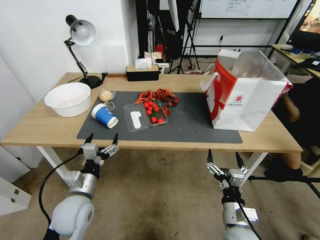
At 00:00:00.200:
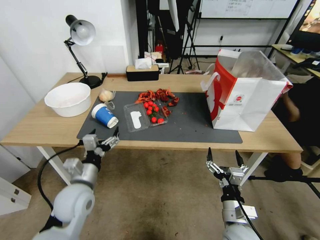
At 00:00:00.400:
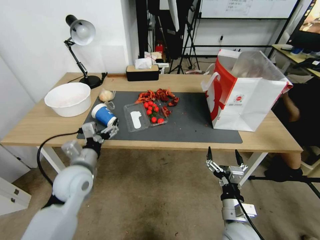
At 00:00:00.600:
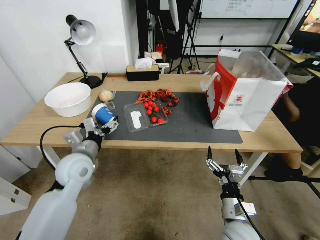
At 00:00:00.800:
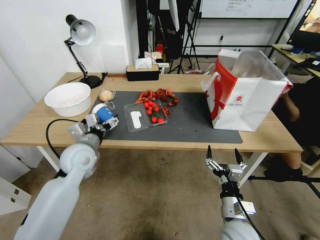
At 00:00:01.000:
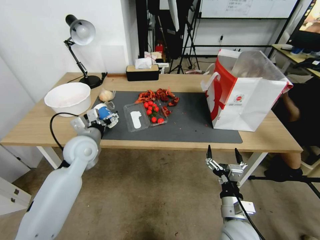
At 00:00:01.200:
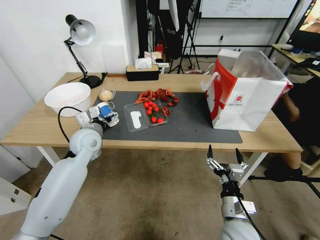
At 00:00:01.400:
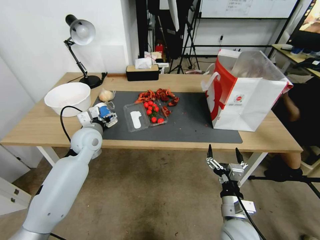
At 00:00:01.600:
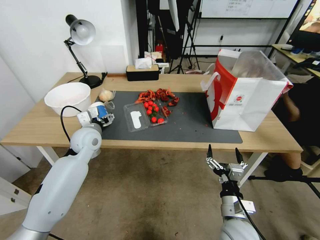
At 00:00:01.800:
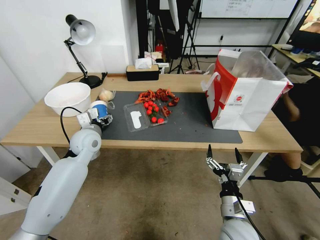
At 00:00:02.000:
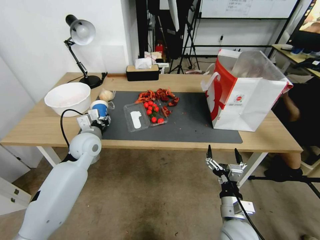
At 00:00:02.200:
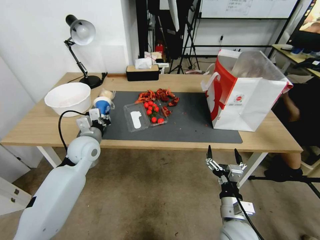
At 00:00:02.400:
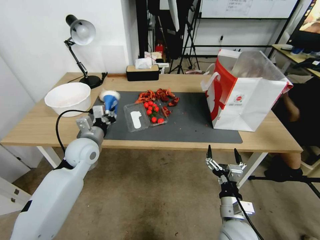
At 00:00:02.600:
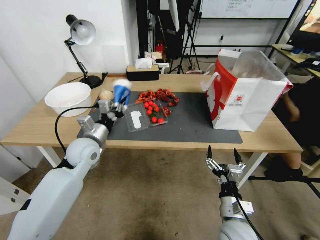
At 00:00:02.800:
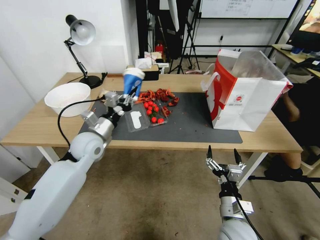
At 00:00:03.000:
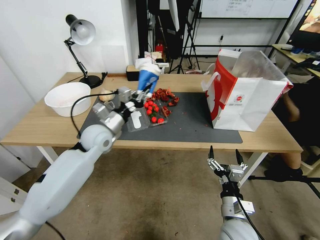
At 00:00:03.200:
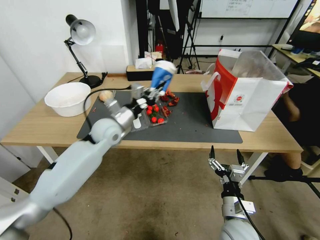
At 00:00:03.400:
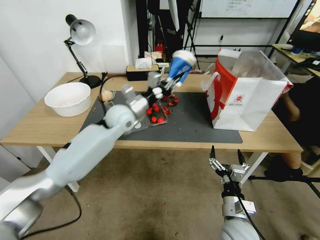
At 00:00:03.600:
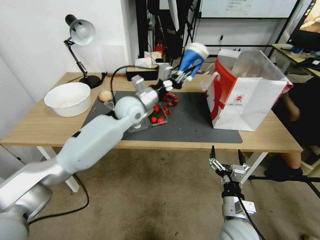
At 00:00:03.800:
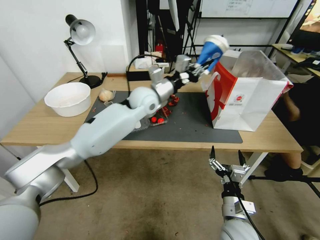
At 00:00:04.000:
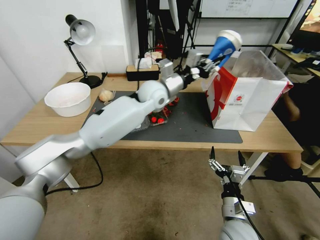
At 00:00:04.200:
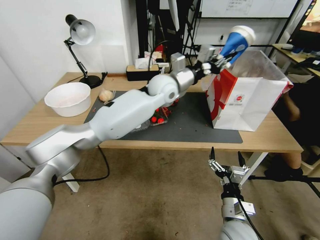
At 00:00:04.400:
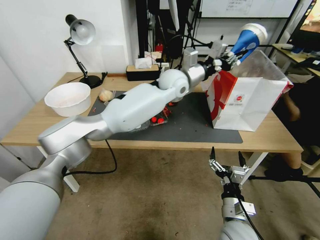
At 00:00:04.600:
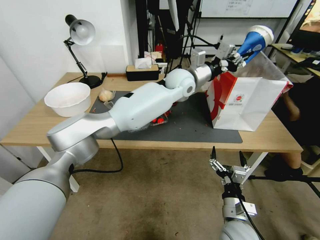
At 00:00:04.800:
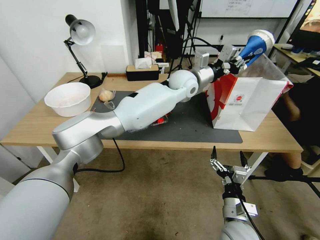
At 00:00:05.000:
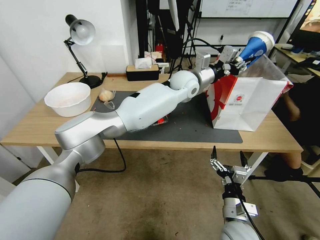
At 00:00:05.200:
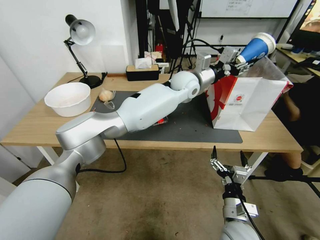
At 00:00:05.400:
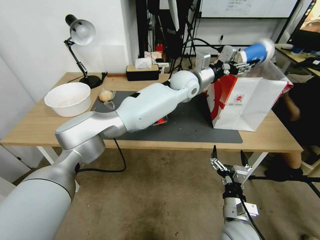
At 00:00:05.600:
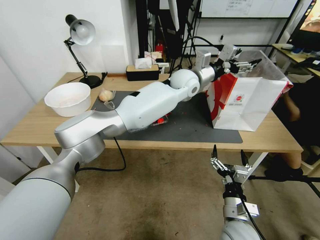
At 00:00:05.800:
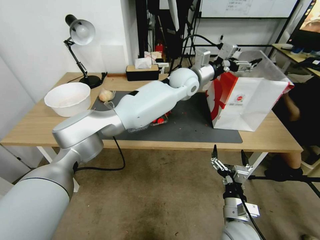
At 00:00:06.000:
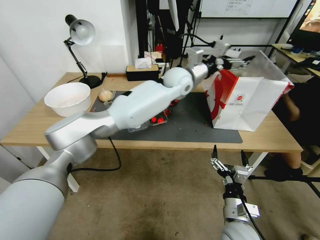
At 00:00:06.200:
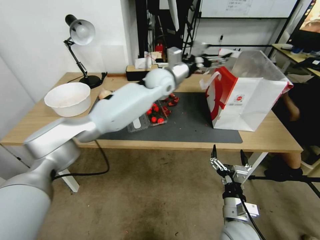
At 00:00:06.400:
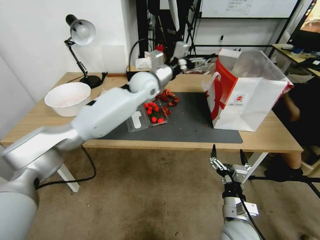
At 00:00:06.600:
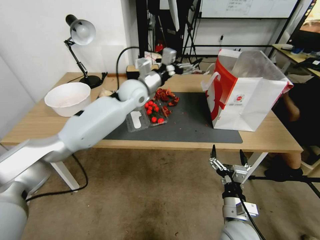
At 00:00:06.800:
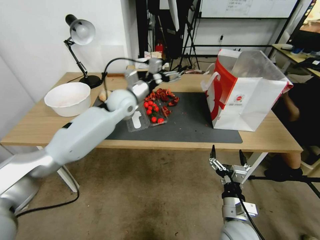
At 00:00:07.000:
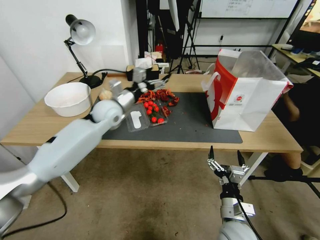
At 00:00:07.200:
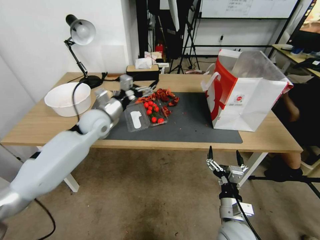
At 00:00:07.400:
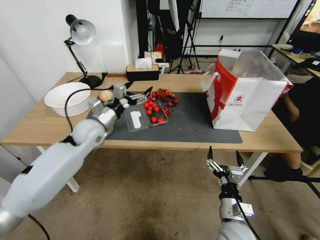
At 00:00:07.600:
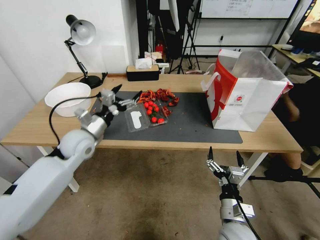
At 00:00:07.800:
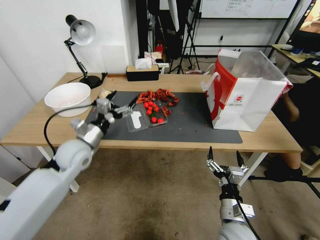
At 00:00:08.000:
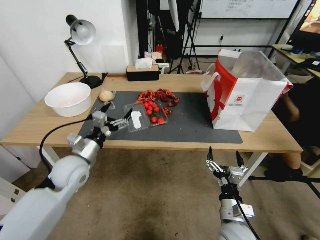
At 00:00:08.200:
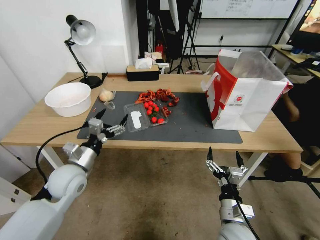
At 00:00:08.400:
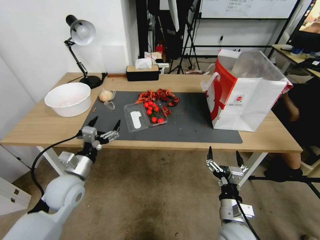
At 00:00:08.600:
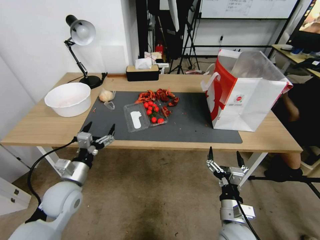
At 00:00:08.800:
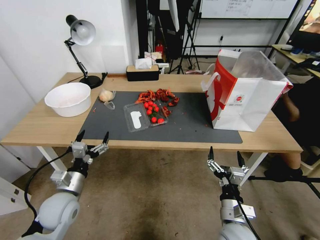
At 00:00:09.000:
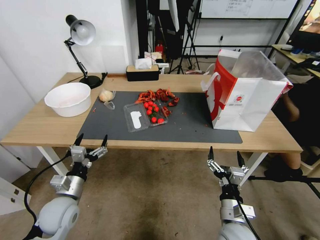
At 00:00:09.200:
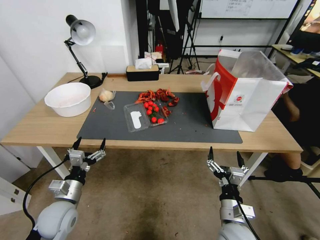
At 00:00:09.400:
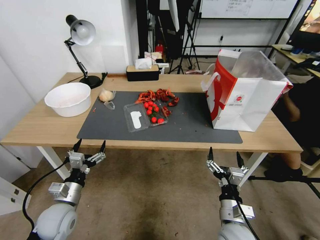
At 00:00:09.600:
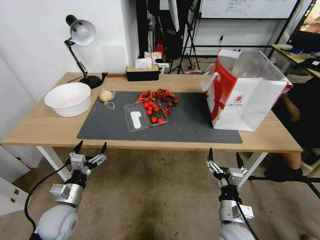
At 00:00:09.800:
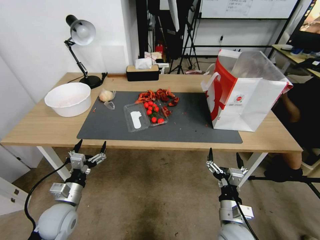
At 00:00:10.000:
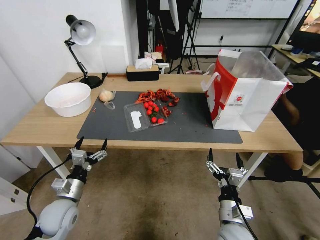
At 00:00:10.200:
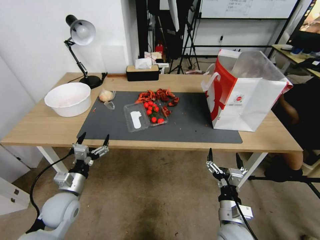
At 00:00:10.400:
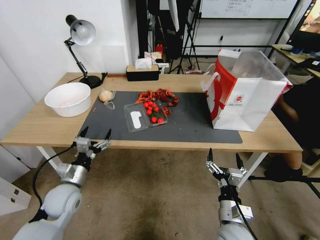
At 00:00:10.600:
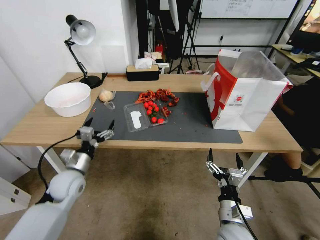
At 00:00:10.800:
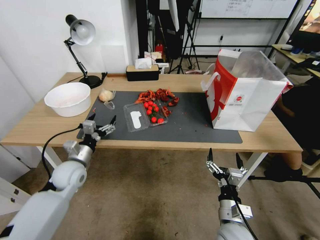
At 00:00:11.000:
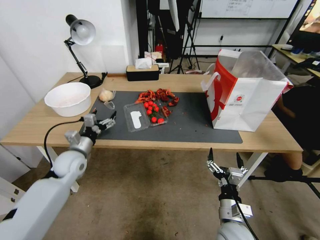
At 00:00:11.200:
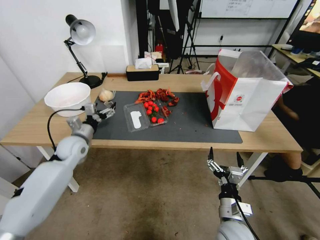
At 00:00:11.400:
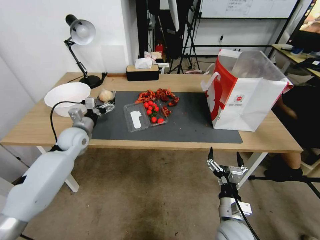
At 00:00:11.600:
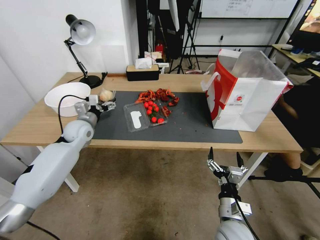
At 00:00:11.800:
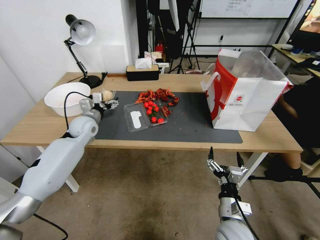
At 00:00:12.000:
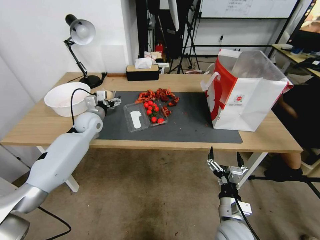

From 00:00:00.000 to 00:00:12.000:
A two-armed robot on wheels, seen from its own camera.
From 00:00:00.000 to 00:00:01.600: The left gripper moves forward, roughly 20 cm.
From 00:00:01.600 to 00:00:03.000: The left gripper closes.
From 00:00:03.000 to 00:00:04.400: The left gripper heads to the right, upward and forward, covering approximately 30 cm.
From 00:00:04.400 to 00:00:06.000: The left gripper opens.
From 00:00:06.000 to 00:00:07.600: The left gripper goes approximately 40 cm to the left, backward and downward.
From 00:00:07.600 to 00:00:09.000: The left gripper heads backward and downward, covering some 20 cm.
From 00:00:09.000 to 00:00:10.400: The grippers make only small movements.
From 00:00:10.400 to 00:00:12.000: The left gripper heads forward, covering approximately 30 cm.

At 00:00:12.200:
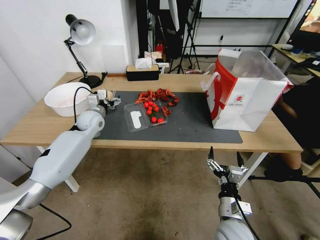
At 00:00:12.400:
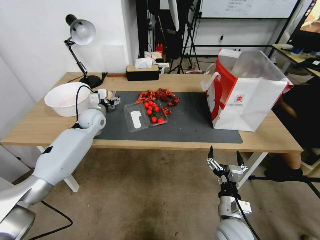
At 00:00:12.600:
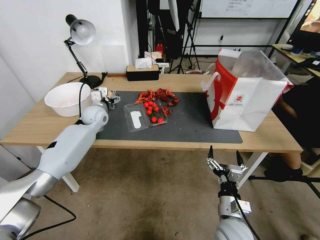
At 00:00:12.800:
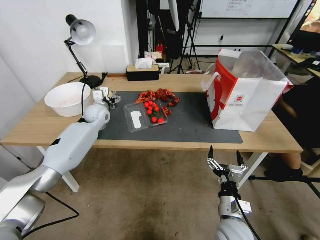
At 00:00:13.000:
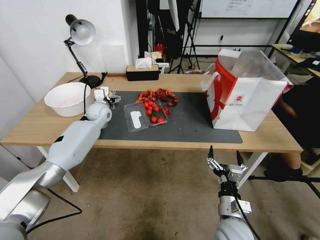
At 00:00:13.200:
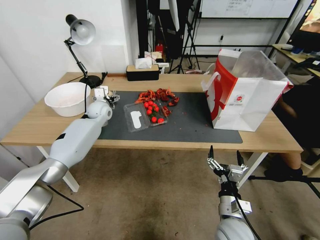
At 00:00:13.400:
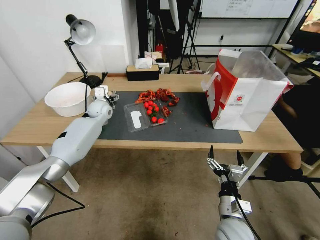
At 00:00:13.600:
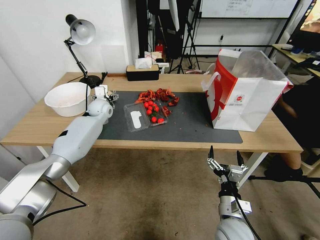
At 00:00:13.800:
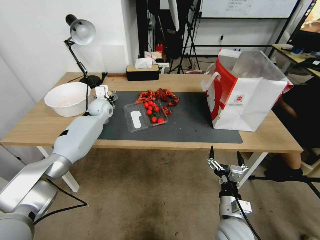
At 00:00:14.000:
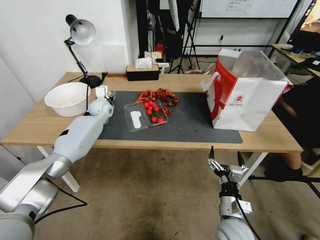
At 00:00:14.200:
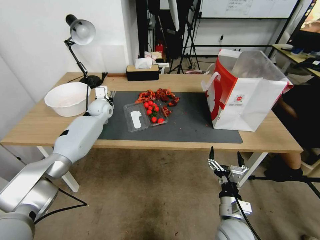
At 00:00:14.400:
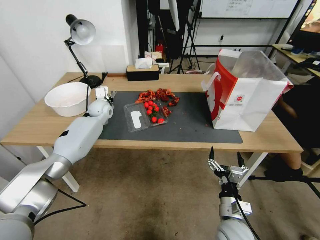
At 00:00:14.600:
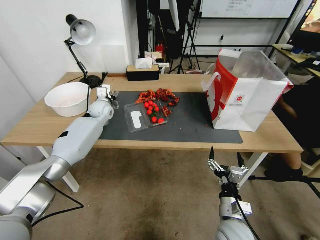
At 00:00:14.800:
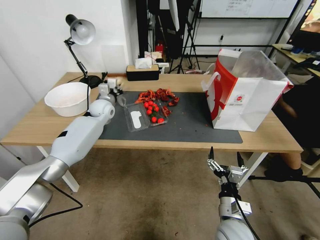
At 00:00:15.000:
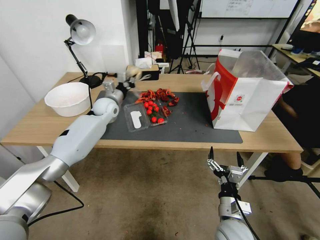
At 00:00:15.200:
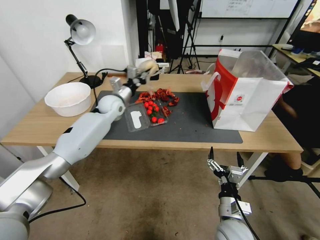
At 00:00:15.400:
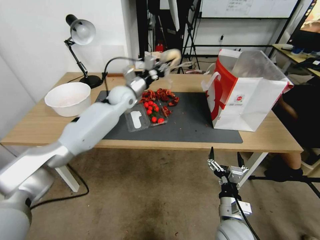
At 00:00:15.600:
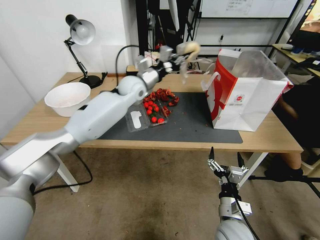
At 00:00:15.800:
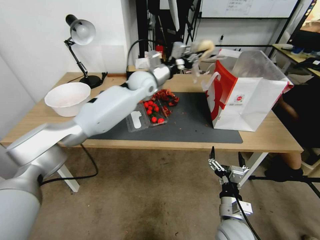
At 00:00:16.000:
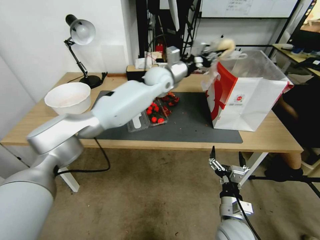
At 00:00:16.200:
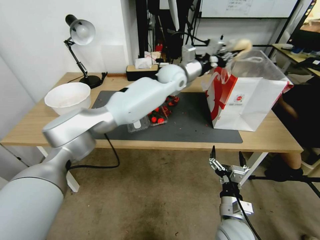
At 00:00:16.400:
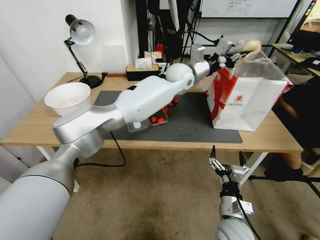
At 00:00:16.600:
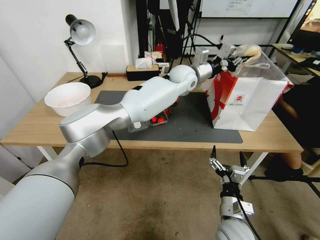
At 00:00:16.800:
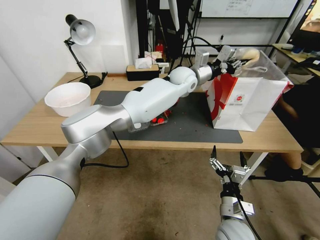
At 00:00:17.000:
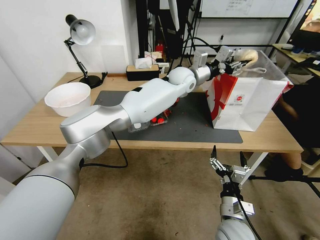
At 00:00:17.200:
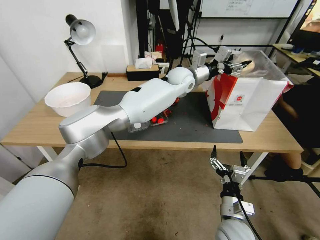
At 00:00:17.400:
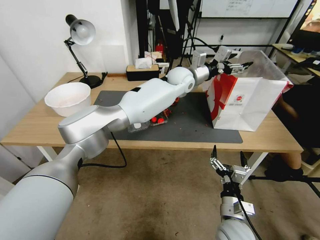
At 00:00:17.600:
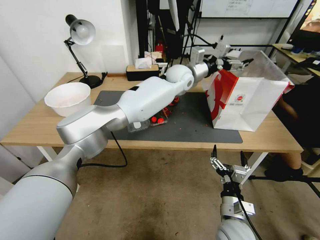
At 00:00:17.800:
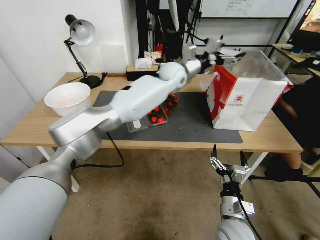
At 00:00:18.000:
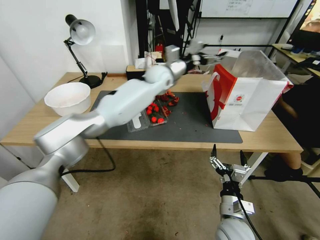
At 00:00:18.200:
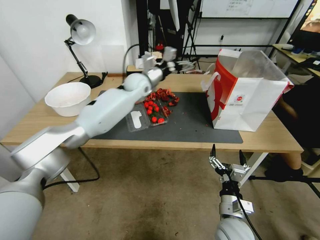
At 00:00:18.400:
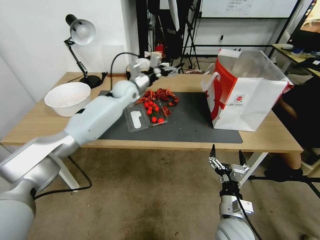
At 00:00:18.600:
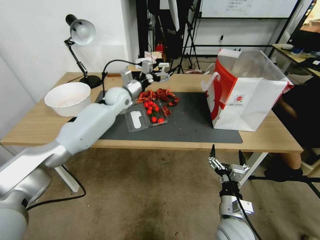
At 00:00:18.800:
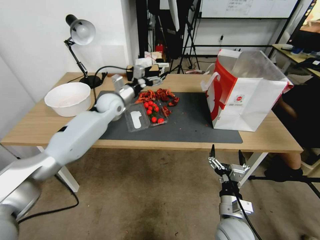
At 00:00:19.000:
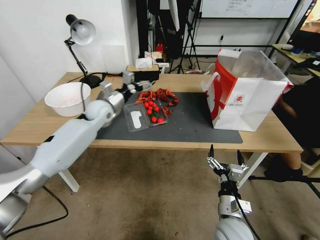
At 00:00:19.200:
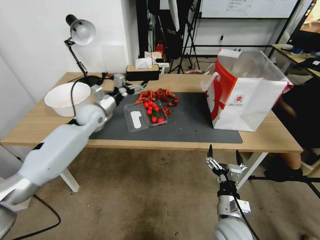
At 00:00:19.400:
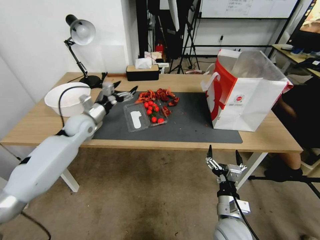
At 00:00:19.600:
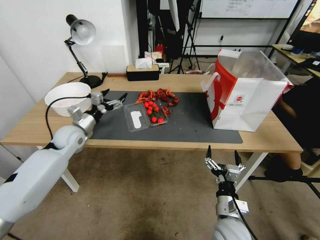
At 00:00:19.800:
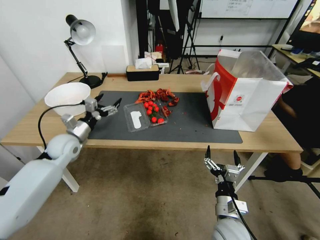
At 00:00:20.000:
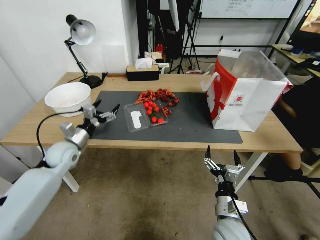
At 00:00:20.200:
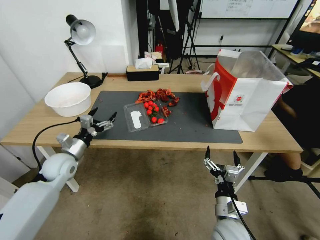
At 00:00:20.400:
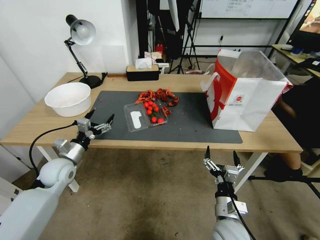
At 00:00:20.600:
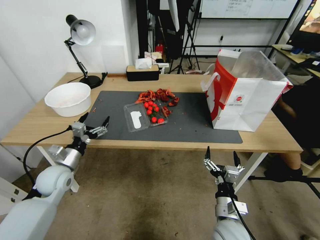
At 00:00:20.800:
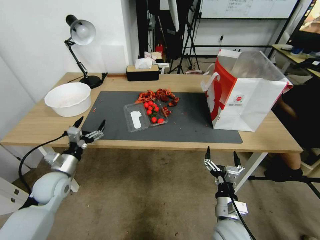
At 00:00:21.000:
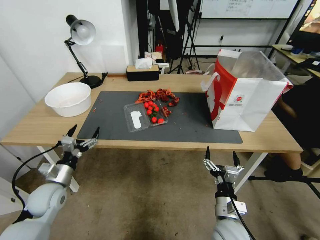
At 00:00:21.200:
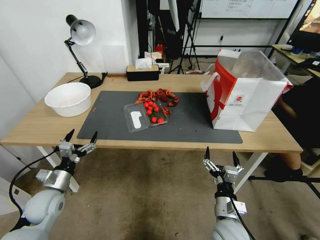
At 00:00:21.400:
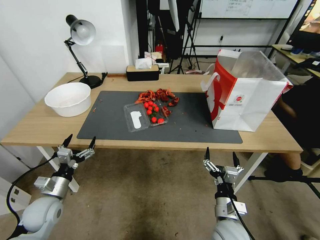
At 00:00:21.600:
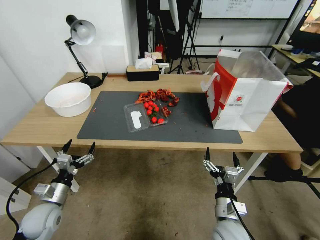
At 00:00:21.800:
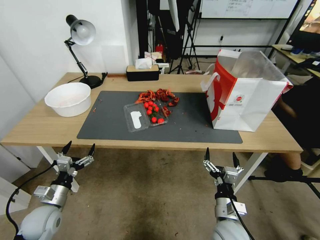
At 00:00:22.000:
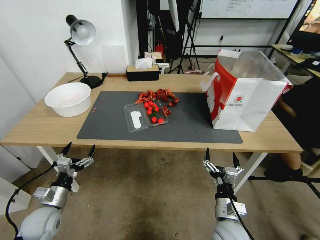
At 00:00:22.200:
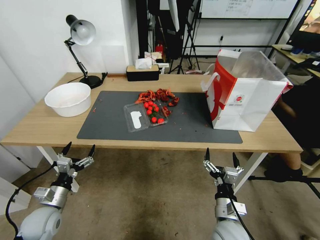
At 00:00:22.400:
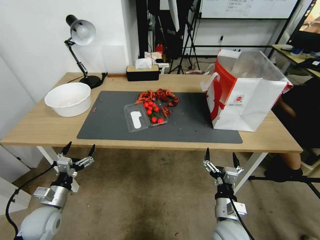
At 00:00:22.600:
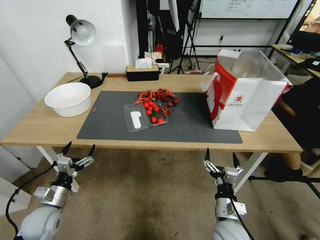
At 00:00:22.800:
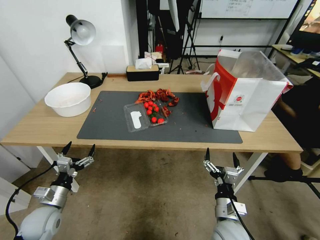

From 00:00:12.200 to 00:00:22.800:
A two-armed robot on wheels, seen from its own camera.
From 00:00:12.200 to 00:00:13.800: The left gripper goes about 10 cm forward.
From 00:00:13.800 to 00:00:15.200: The left gripper shifts approximately 5 cm to the right, and closes up.
From 00:00:15.200 to 00:00:16.800: The left gripper shifts about 30 cm to the right.
From 00:00:16.800 to 00:00:18.200: The left gripper shifts roughly 15 cm to the left, and opens up.
From 00:00:18.200 to 00:00:19.800: The left gripper travels to the left, backward and downward by approximately 35 cm.
From 00:00:19.800 to 00:00:21.200: The left gripper goes approximately 20 cm backward and downward.
From 00:00:21.200 to 00:00:22.800: The grippers stay close to where they were, moving slightly.
